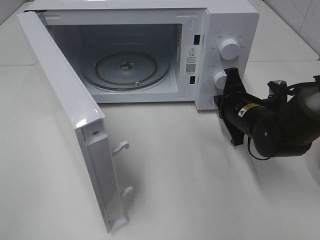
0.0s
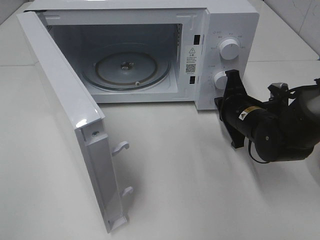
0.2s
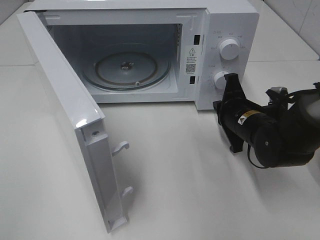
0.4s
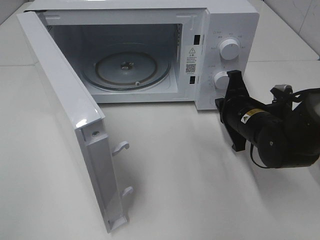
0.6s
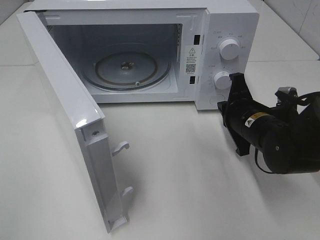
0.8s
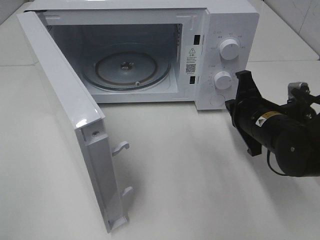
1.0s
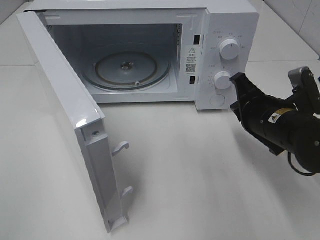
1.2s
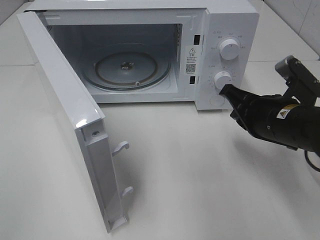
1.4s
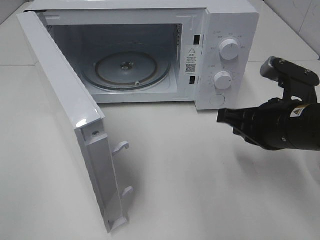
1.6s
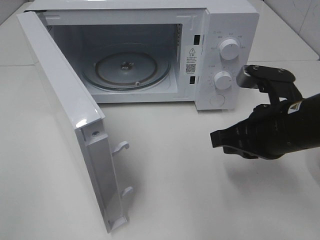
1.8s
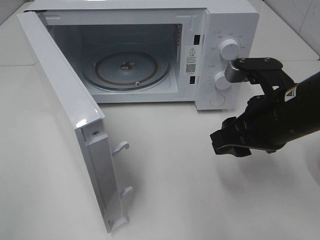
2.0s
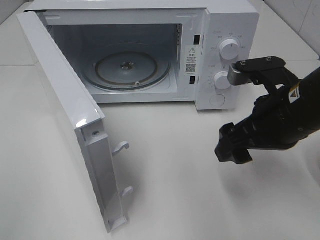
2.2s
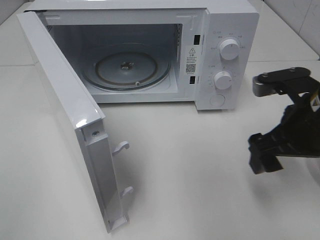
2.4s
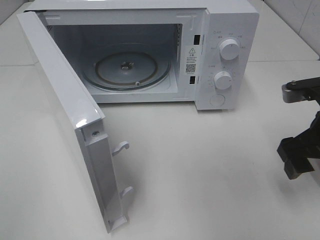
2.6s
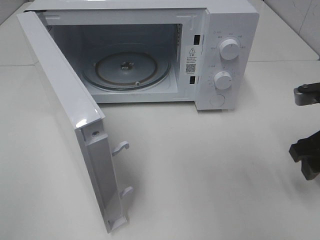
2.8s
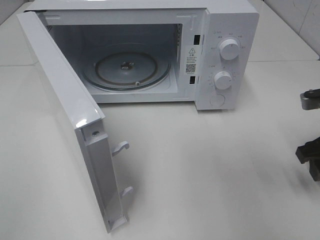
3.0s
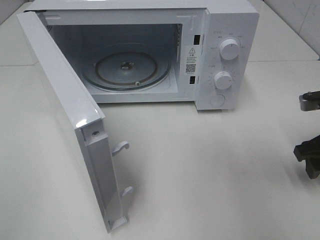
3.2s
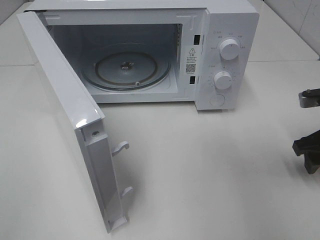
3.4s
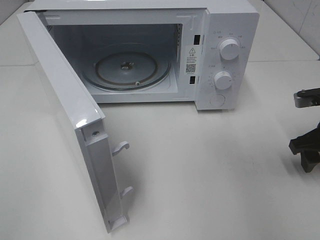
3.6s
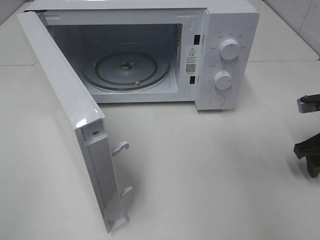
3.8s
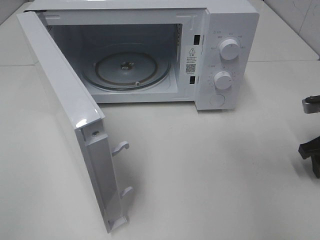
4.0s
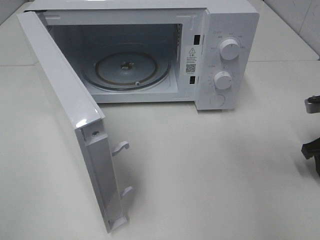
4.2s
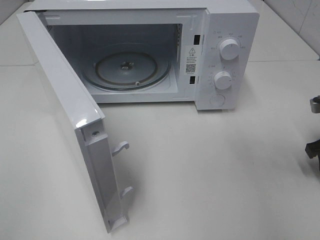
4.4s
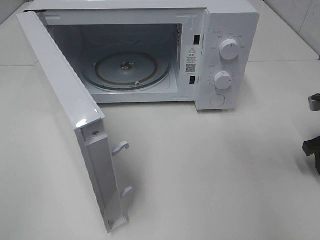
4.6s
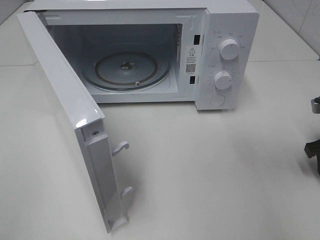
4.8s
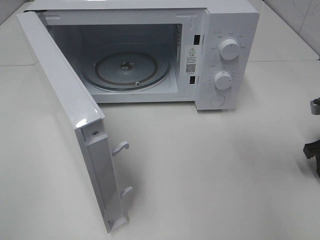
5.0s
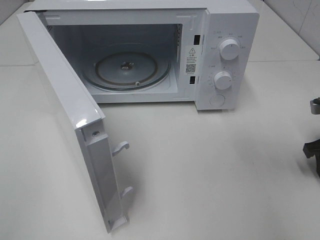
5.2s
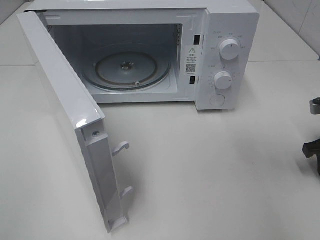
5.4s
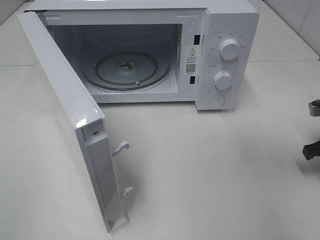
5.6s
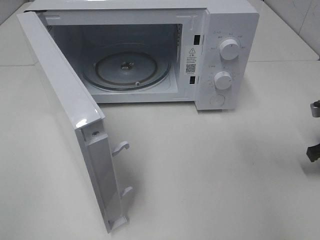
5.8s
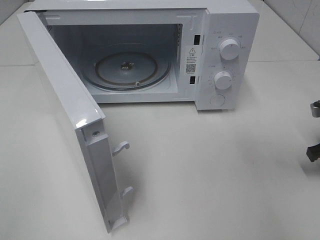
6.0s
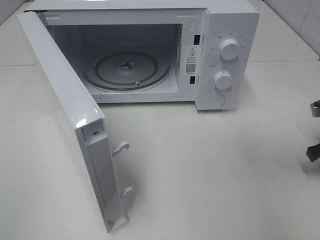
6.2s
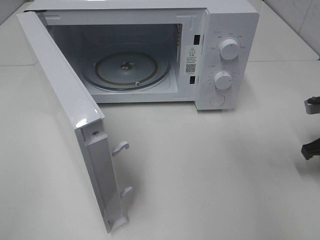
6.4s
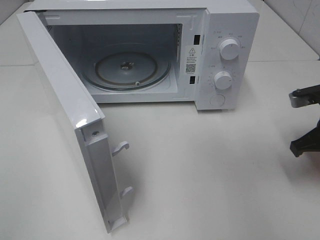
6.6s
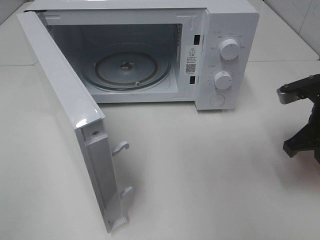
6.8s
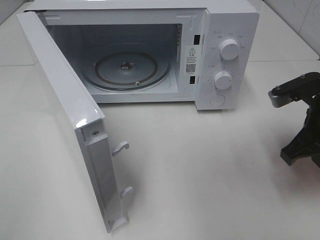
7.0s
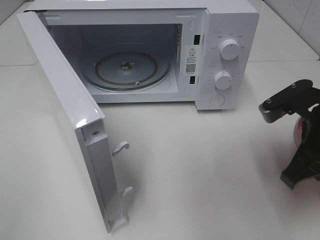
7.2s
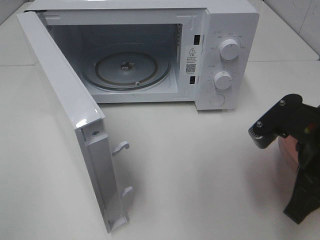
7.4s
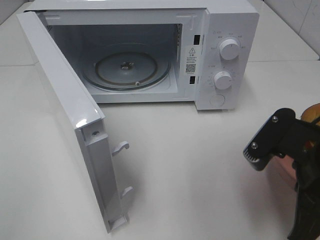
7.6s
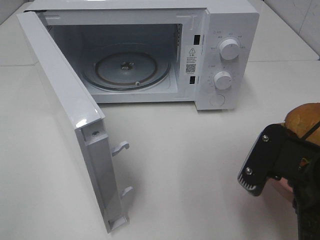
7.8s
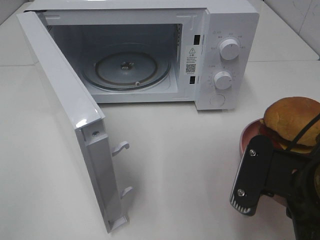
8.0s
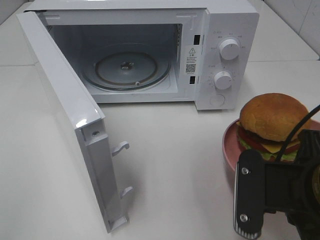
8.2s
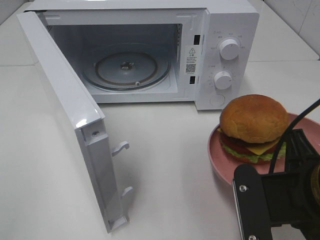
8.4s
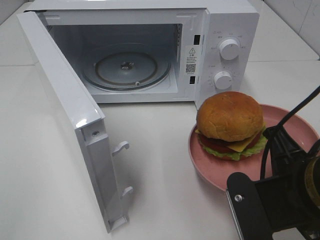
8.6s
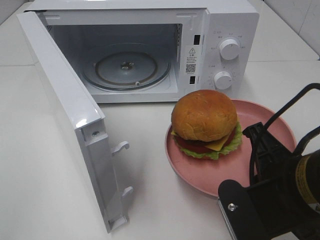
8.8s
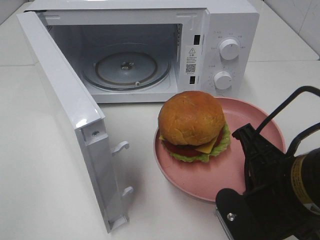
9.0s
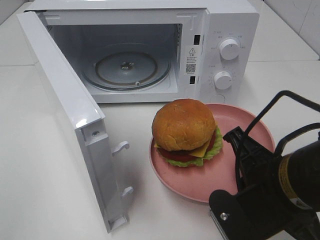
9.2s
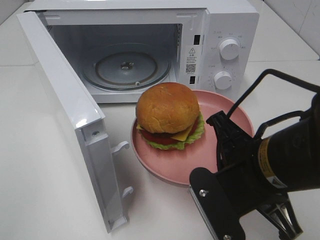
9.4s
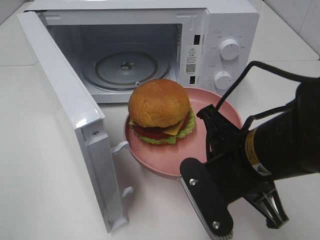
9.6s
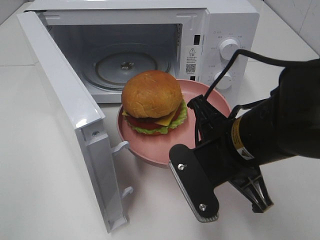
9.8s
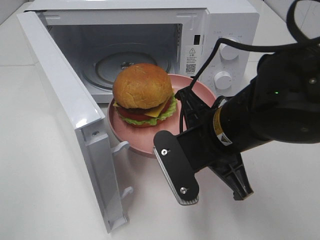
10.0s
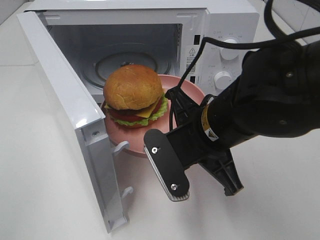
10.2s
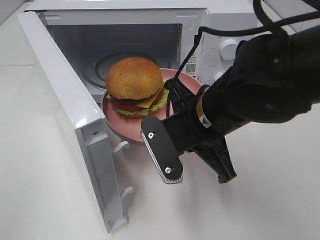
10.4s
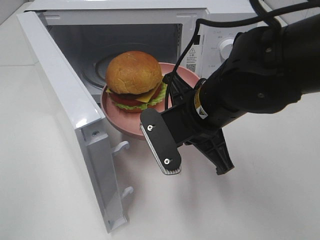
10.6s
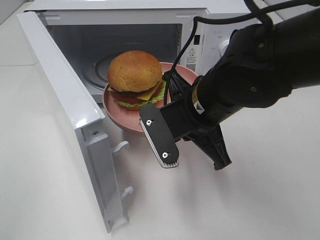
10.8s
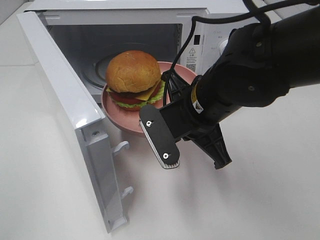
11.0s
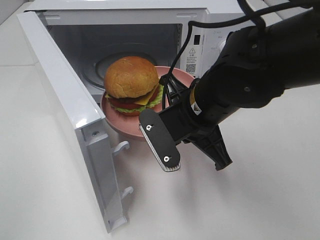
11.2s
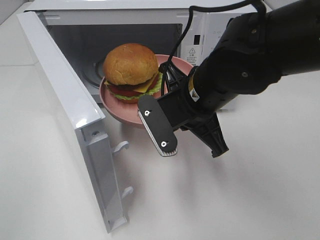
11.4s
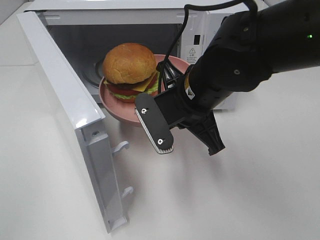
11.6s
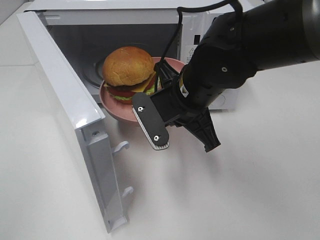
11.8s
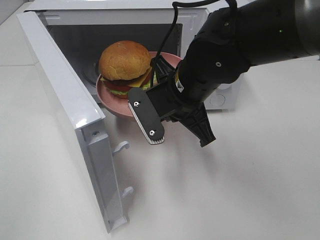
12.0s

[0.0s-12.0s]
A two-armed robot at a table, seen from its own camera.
Task of the whole recording: Heat the burger.
Step, 0.4s to 5.6s: Right hand: grab the plate with the hamburger.
0.0s to 1.6s: The right gripper is displaced backward and upward by approximately 15 cm.
1.6s to 3.0s: The right gripper goes approximately 10 cm to the right, and opens.
3.0s to 4.4s: The right gripper heads to the right, covering about 5 cm.
6.0s to 7.6s: The right gripper travels to the left, backward and upward by roughly 20 cm.
7.6s to 9.0s: The right gripper heads to the left, covering some 5 cm.
9.0s to 10.4s: The right gripper is displaced forward and to the left by roughly 10 cm.
10.4s to 12.0s: The right gripper travels forward by roughly 5 cm.

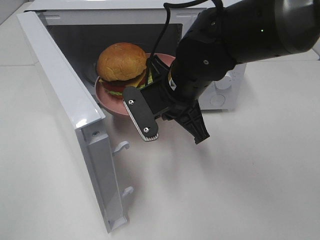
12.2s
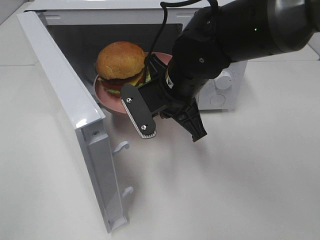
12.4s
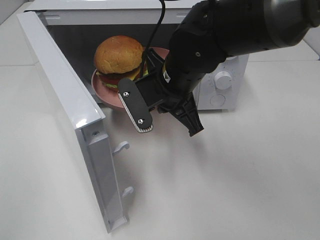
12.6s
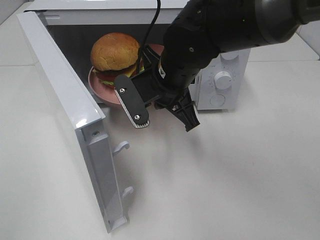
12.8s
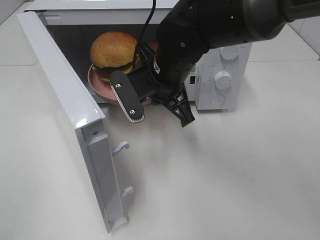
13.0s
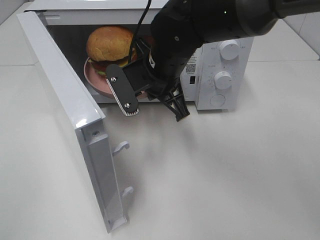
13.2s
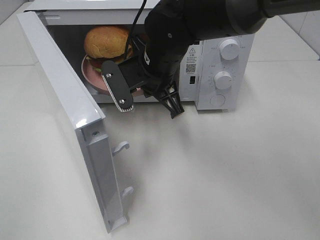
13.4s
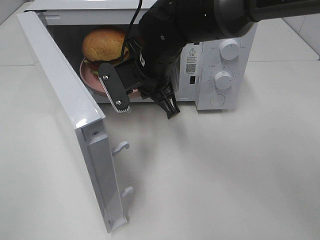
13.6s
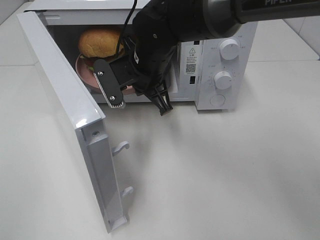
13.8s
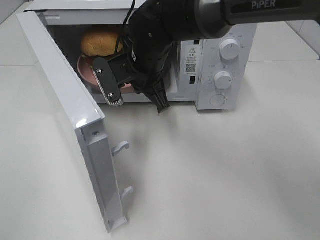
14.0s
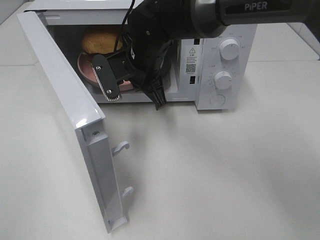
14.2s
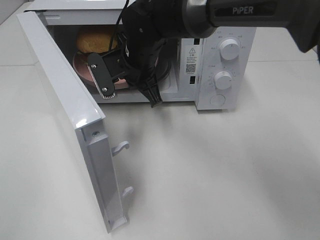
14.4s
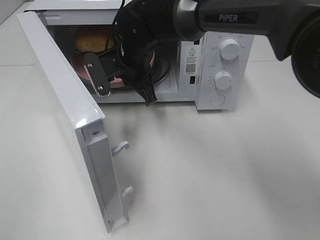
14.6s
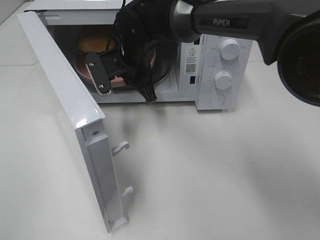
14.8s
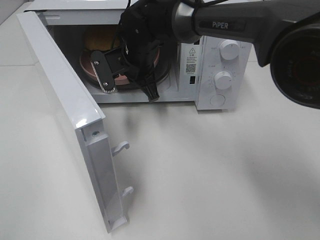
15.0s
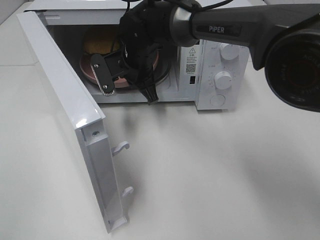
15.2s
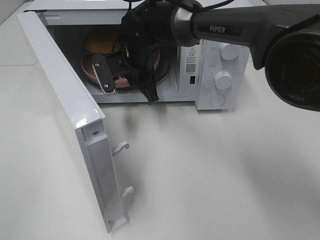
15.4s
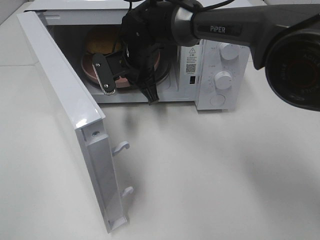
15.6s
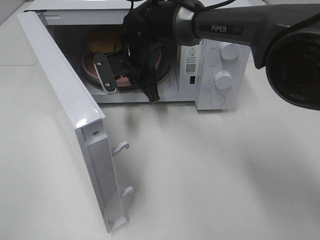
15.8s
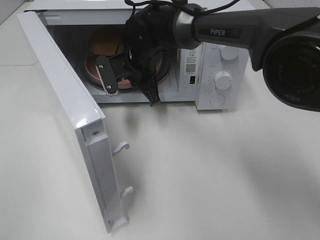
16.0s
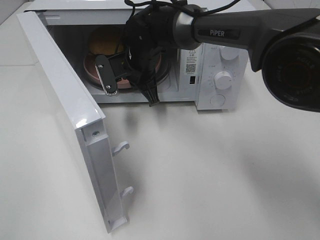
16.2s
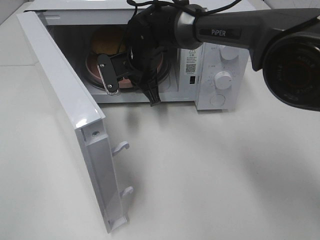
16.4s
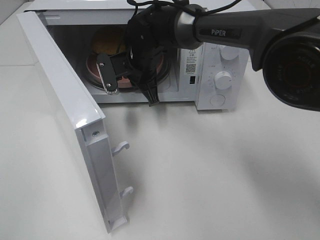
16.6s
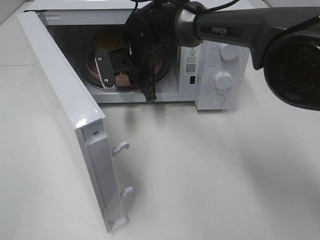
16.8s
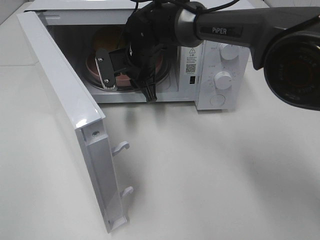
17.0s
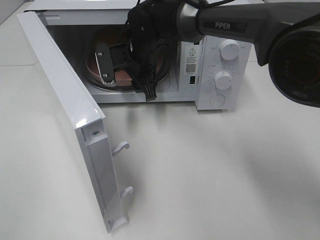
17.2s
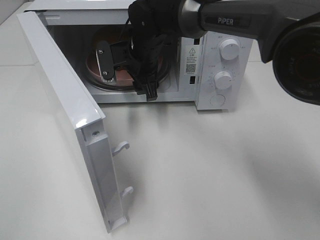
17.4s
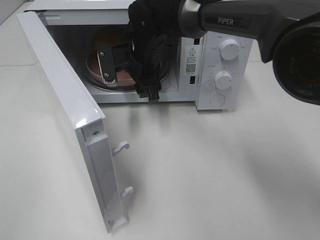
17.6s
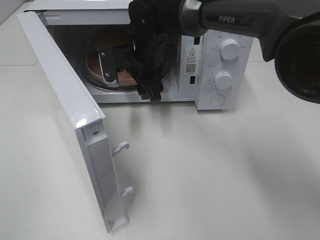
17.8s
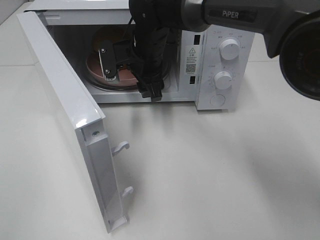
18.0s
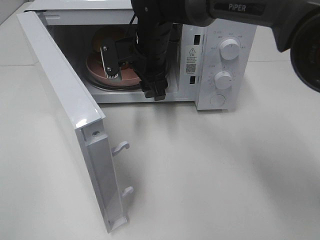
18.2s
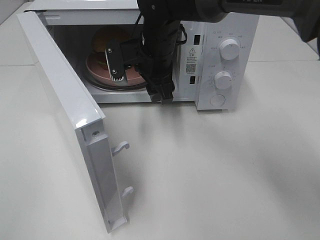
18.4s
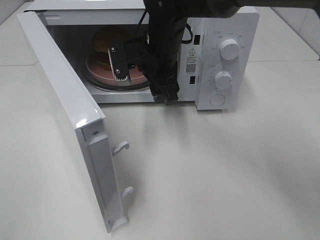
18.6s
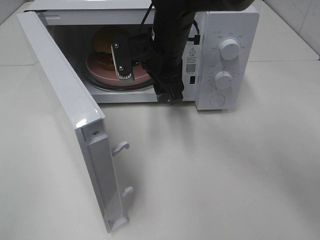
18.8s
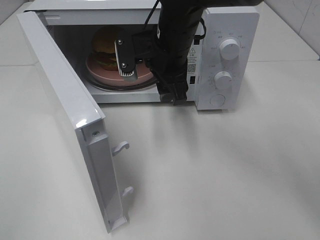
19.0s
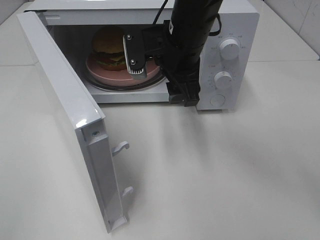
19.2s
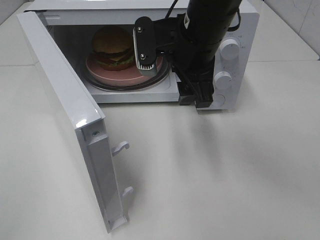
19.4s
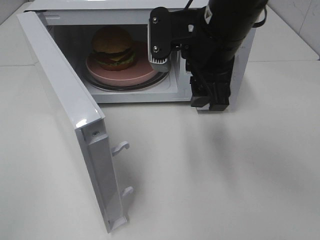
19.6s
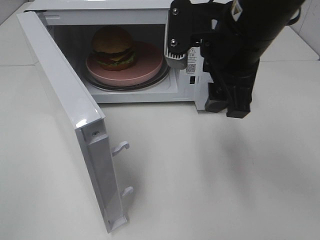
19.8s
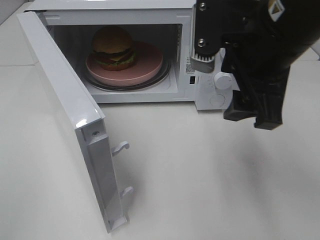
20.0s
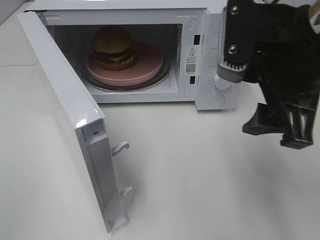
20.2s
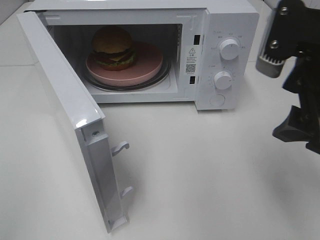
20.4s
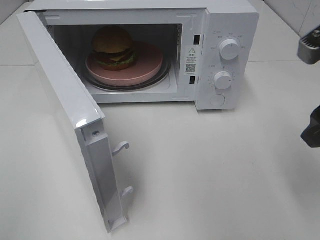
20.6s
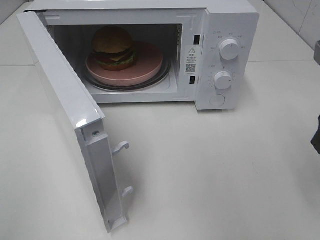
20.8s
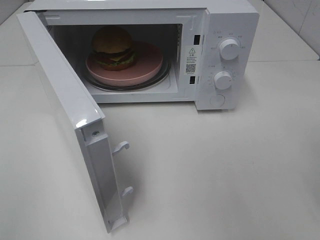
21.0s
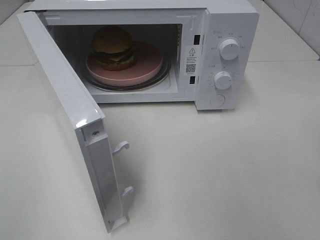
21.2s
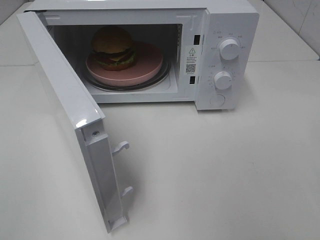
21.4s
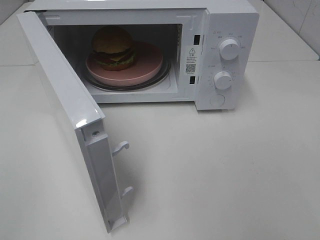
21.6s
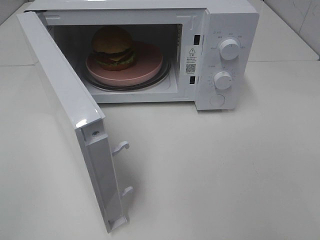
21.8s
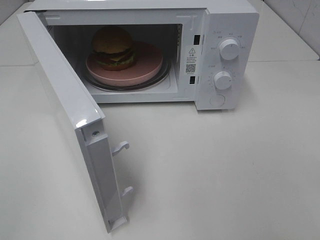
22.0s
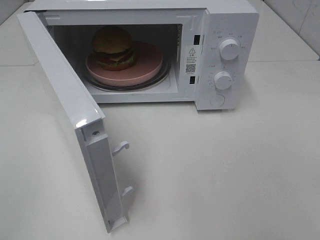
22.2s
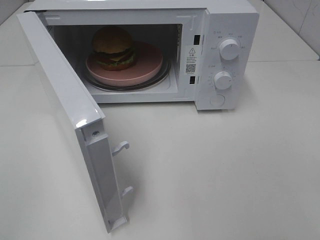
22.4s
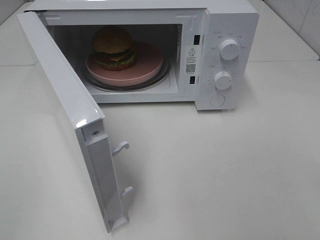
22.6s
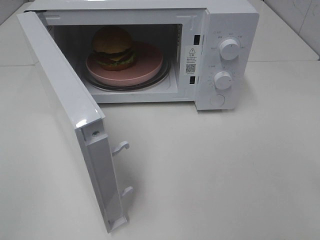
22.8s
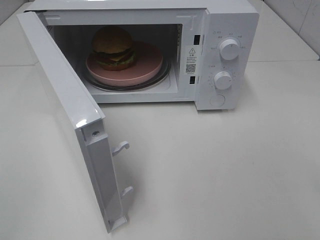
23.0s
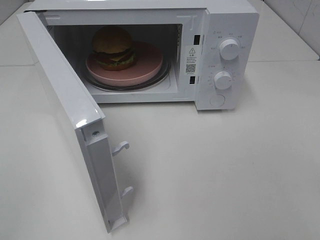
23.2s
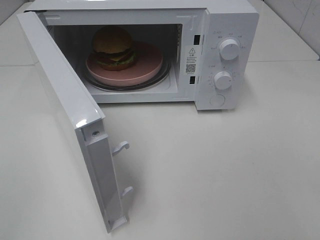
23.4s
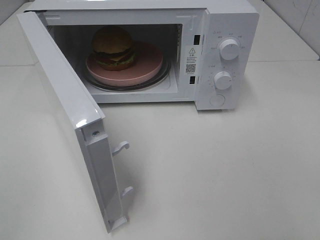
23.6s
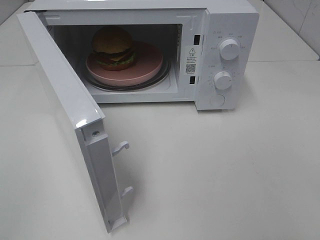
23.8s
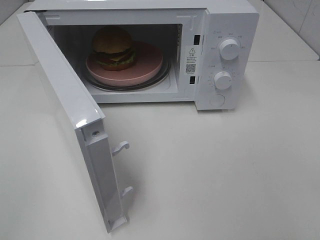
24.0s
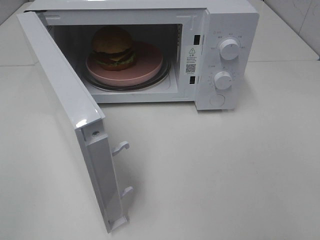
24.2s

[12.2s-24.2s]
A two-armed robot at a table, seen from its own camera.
Task of the whole recording: Heat the burger.
Step, 12.2s to 16.8s: Right hand: place the plate in the microwave.
12.2s to 13.8s: The right gripper travels forward and to the left by some 10 cm.
13.8s to 15.2s: The right gripper heads forward, covering some 5 cm.
15.2s to 16.6s: The grippers make only small movements.
16.6s to 18.2s: The right gripper opens up.
18.2s to 19.8s: The right gripper heads backward, to the right and upward, covering approximately 20 cm.
19.8s to 21.2s: The right gripper shifts about 20 cm to the right and backward.
